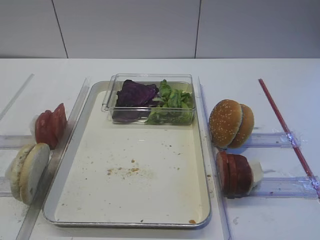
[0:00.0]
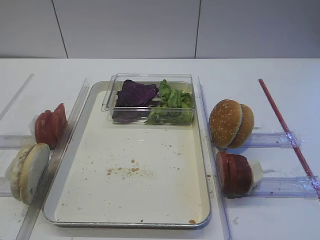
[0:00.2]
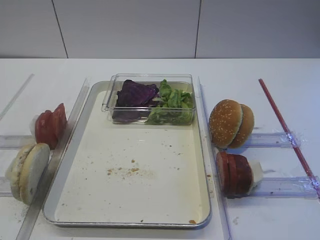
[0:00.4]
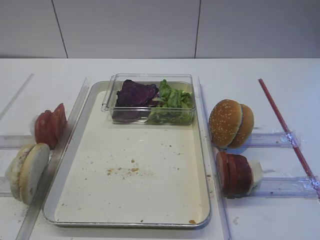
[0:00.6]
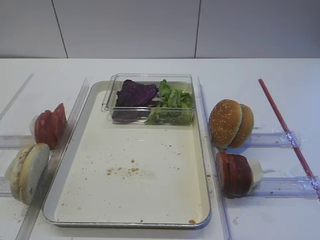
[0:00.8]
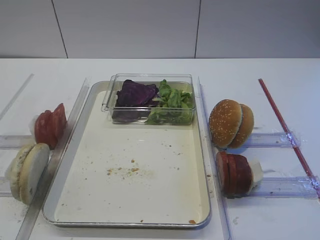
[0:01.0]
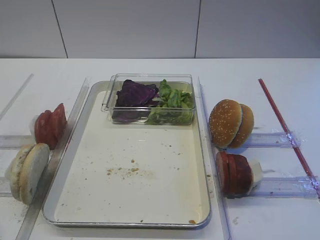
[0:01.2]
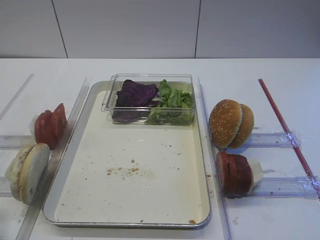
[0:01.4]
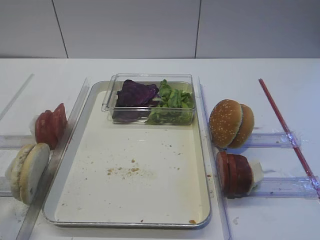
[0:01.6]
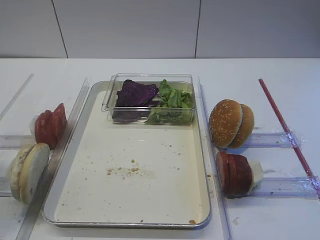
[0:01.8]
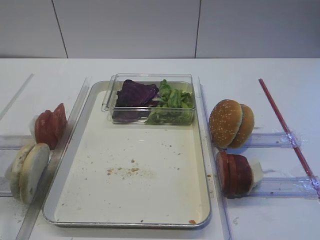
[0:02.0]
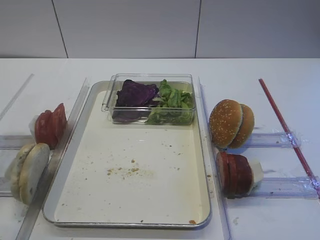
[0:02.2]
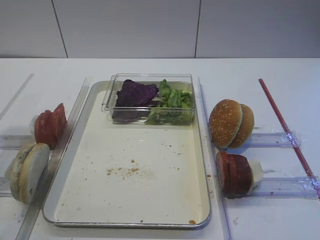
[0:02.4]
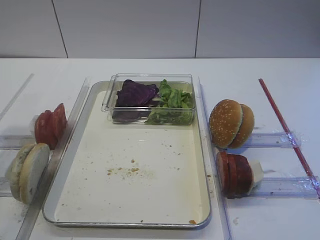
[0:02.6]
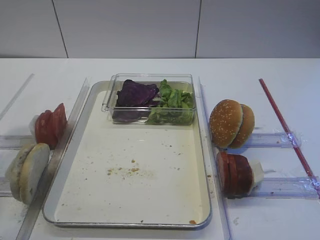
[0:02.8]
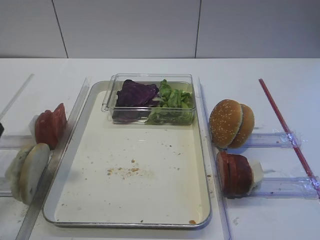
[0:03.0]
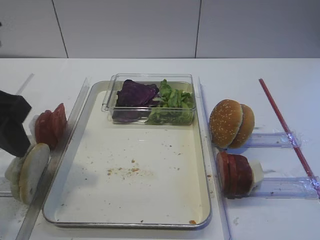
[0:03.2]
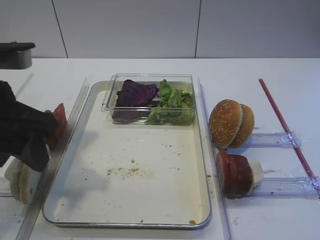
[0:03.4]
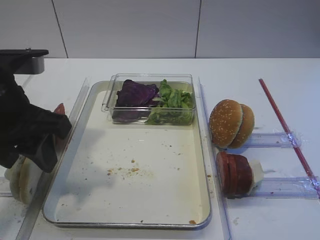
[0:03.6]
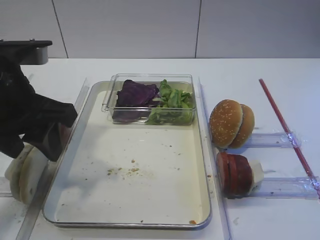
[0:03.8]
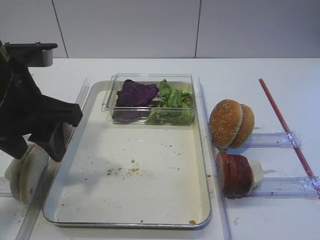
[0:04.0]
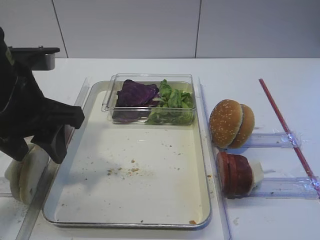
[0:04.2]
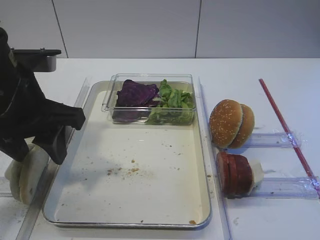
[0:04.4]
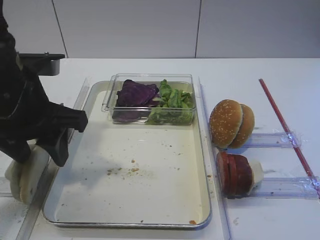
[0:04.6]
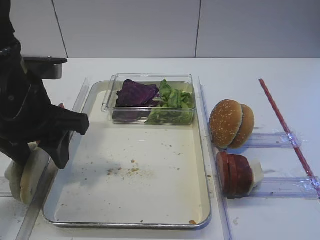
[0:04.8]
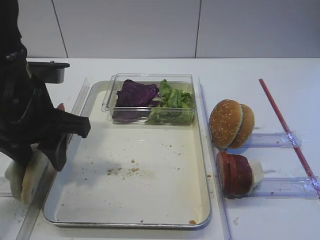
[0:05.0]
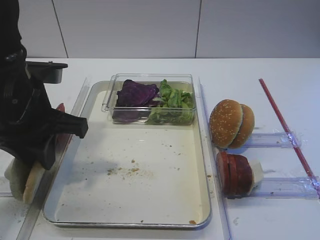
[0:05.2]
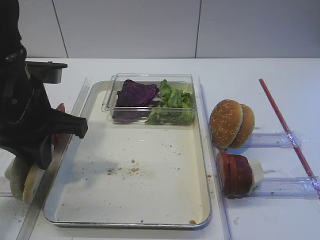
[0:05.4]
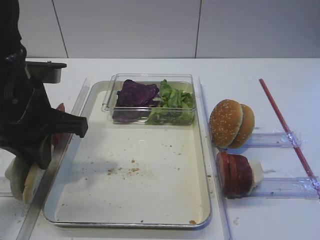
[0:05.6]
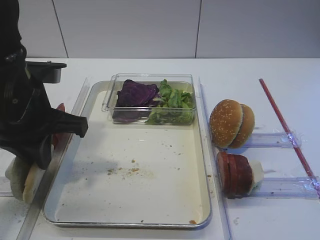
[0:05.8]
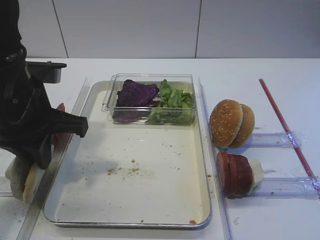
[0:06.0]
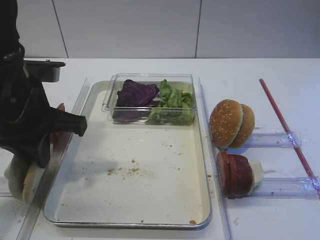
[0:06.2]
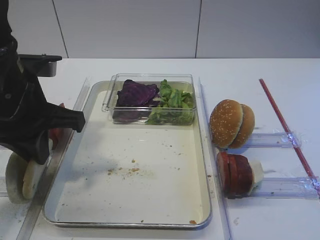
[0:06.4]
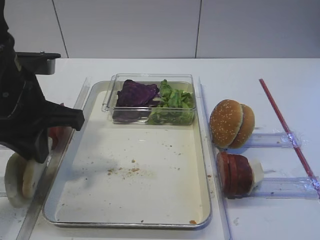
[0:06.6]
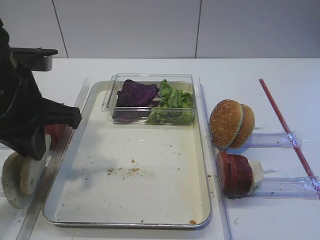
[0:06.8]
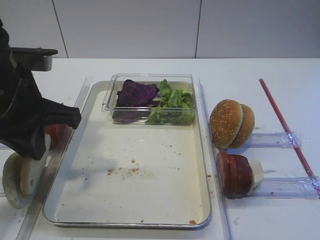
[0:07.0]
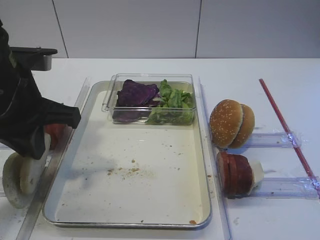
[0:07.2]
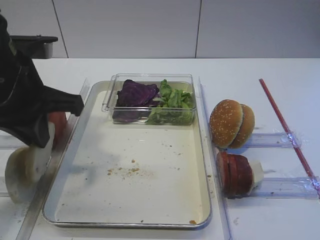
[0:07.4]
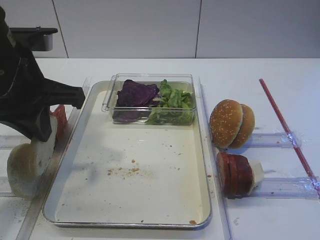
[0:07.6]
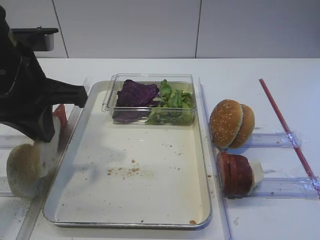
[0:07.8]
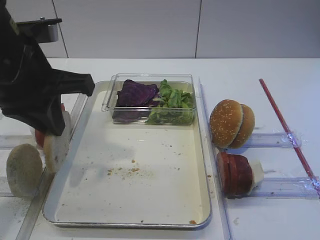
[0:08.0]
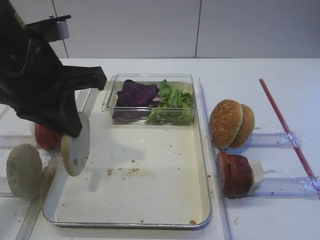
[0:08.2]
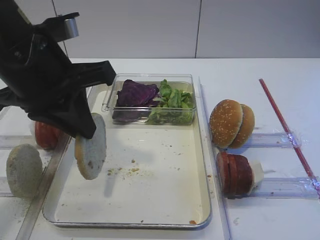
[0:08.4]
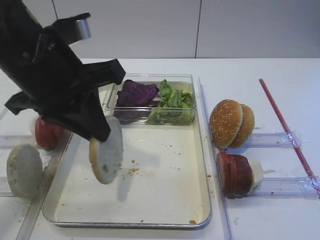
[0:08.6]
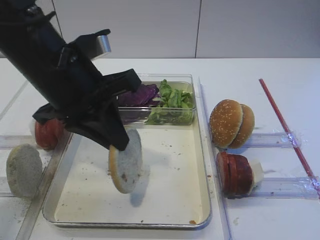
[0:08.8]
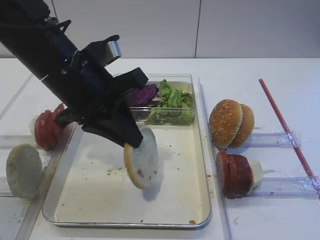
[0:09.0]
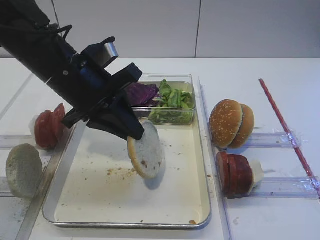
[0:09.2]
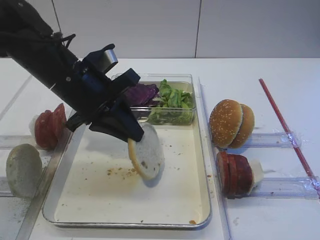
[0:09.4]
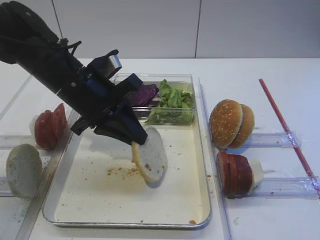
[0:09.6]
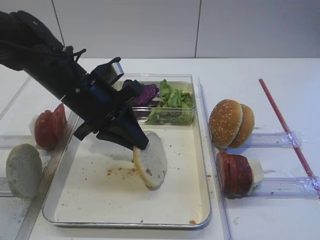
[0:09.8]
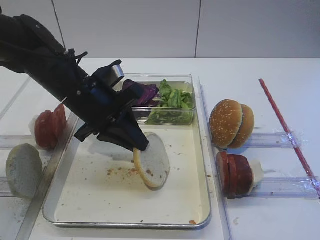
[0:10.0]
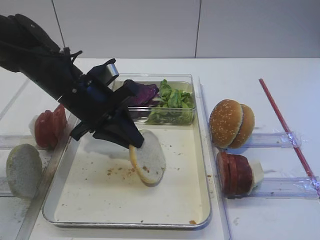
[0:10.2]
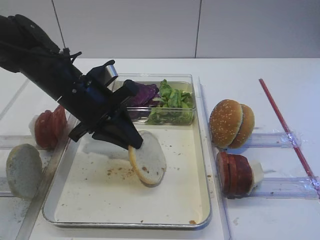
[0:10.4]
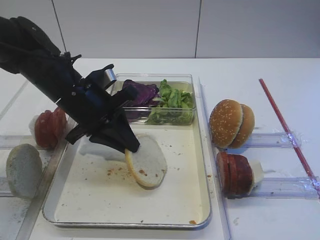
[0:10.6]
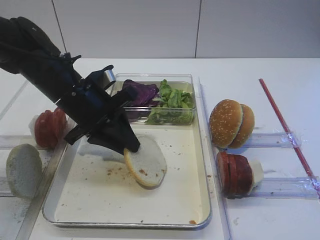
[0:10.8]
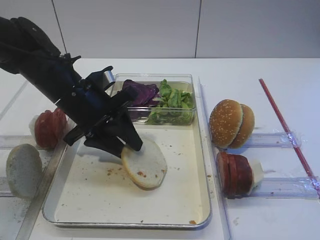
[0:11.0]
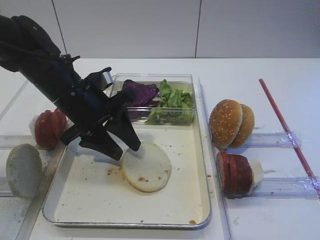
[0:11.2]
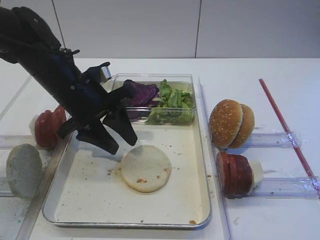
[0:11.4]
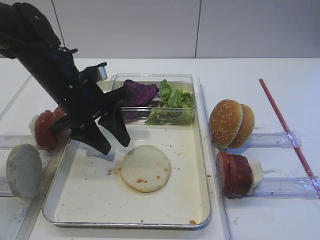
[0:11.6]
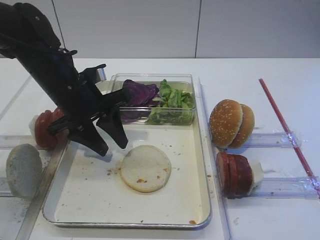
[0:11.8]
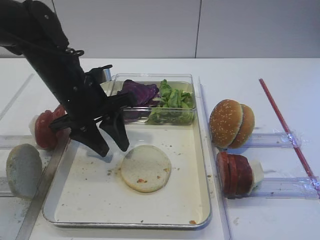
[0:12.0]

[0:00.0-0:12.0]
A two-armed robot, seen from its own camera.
Step, 0:00.0 to 0:07.8: Pick up the bread slice with the left gripper.
Step, 0:08.0 to 0:11.4: Place the bread slice on the tray with the left gripper.
0:01.6 to 0:03.0: The left gripper is displaced forward by about 10 cm.
0:03.0 to 0:04.4: The left gripper moves to the right, about 5 cm.
0:04.4 to 0:06.0: The left gripper closes up.
0:06.0 to 0:07.6: The grippers stay close to where they were, moving slightly.
0:07.6 to 0:09.0: The left gripper moves to the right, some 5 cm.
0:09.0 to 0:10.4: The left gripper heads downward, covering some 5 cm.
0:10.4 to 0:12.0: The left gripper opens.

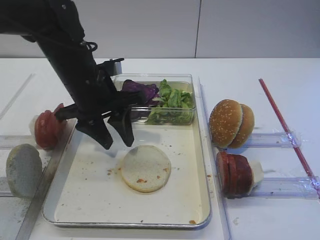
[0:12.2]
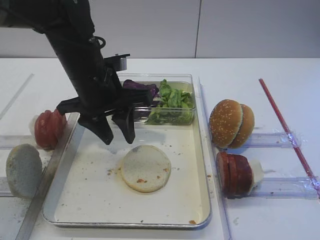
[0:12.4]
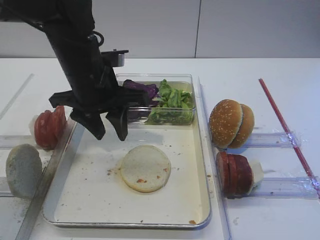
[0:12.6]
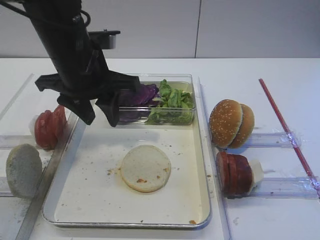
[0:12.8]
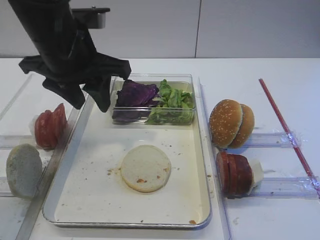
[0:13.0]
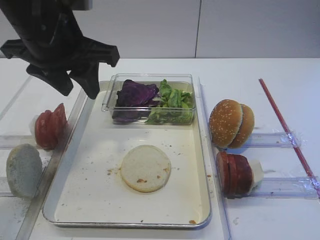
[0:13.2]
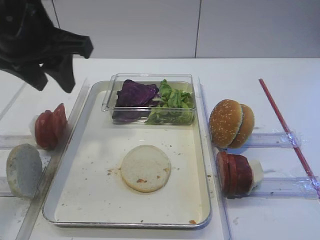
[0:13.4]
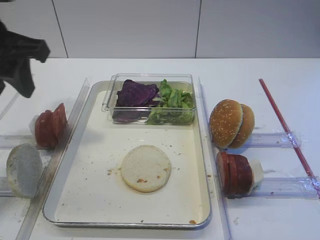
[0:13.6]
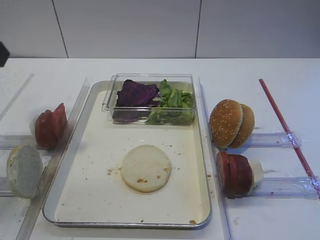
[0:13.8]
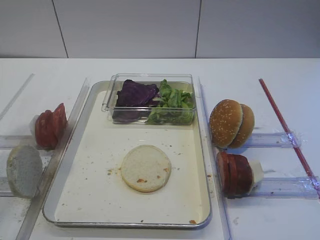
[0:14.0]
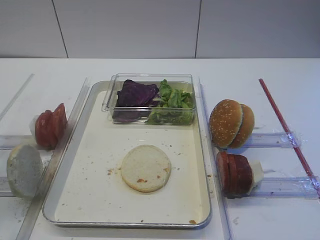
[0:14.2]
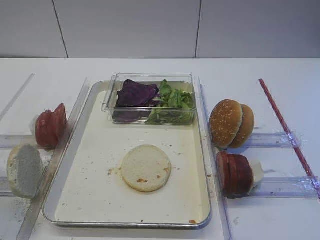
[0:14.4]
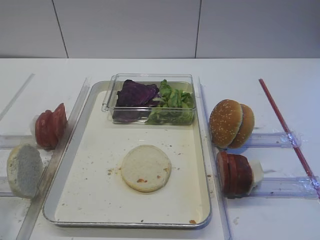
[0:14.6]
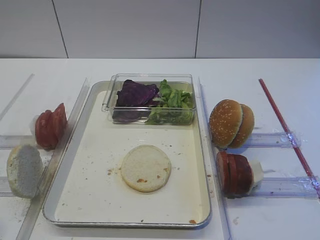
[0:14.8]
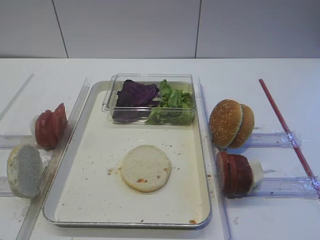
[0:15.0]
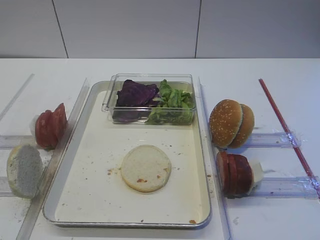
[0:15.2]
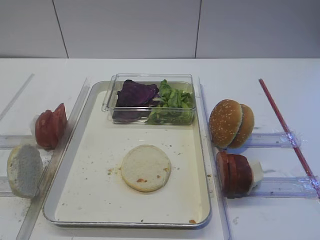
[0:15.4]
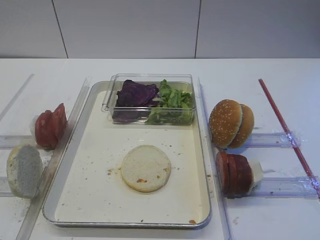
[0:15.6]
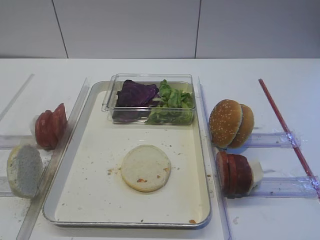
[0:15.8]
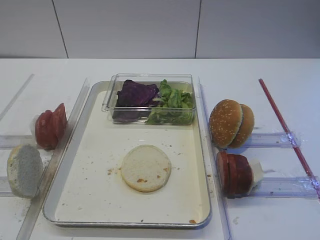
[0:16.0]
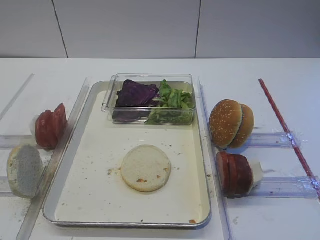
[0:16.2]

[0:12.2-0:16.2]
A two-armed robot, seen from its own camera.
0:12.2 to 0:13.6: The left gripper heads upward, to the left and backward, covering roughly 20 cm.
0:13.6 to 0:14.8: The left gripper shifts roughly 25 cm backward.

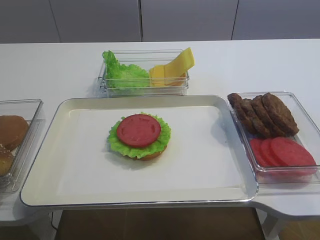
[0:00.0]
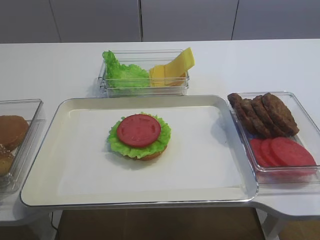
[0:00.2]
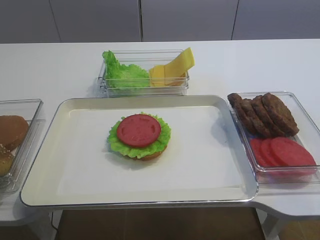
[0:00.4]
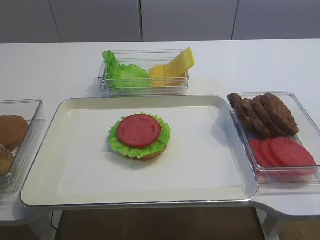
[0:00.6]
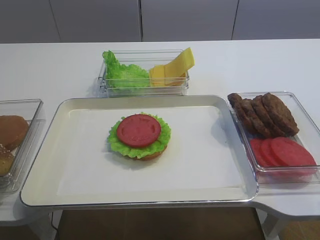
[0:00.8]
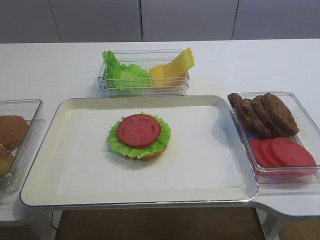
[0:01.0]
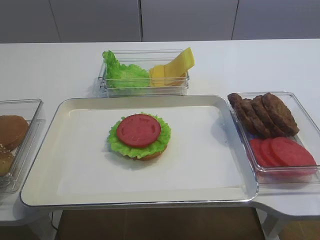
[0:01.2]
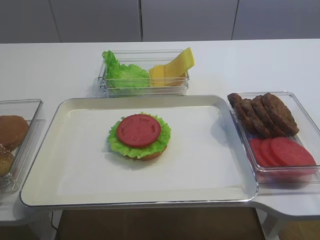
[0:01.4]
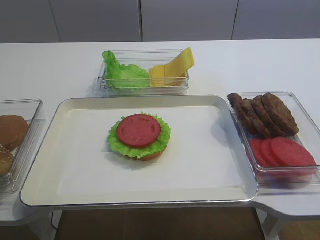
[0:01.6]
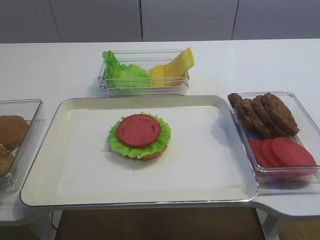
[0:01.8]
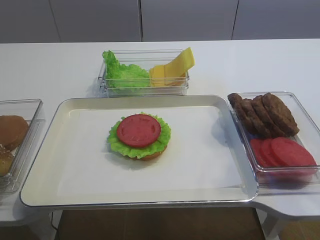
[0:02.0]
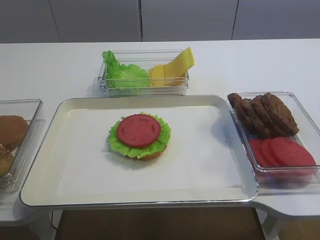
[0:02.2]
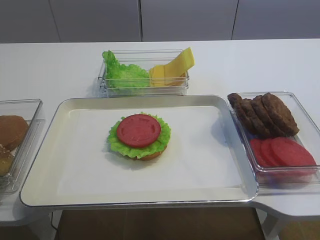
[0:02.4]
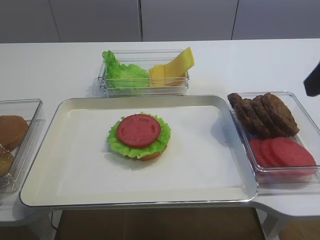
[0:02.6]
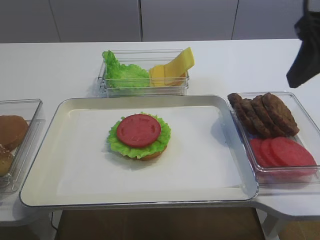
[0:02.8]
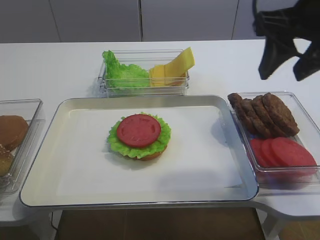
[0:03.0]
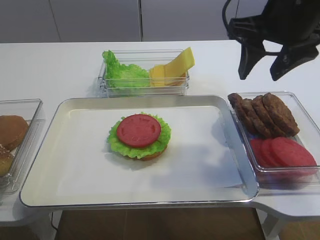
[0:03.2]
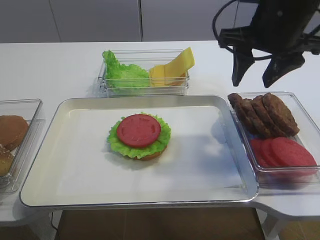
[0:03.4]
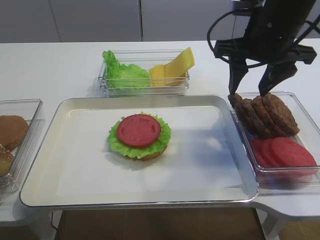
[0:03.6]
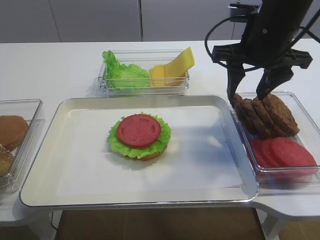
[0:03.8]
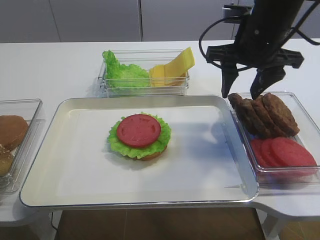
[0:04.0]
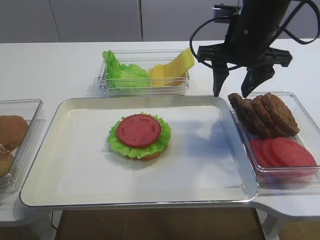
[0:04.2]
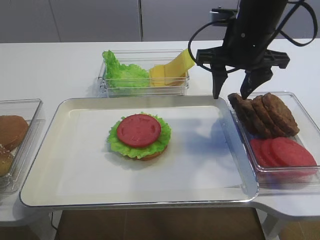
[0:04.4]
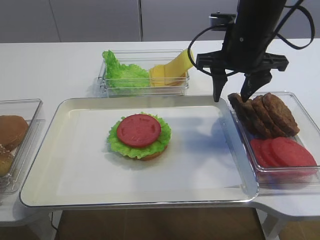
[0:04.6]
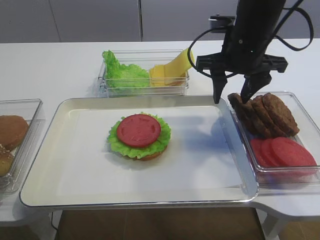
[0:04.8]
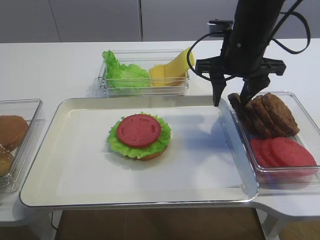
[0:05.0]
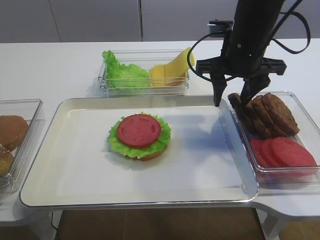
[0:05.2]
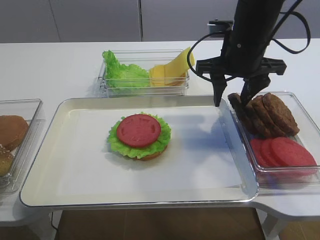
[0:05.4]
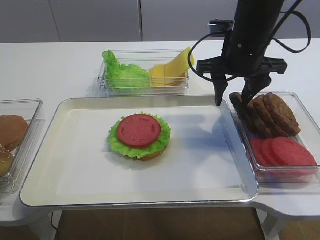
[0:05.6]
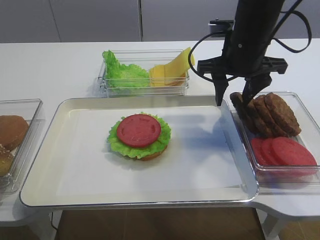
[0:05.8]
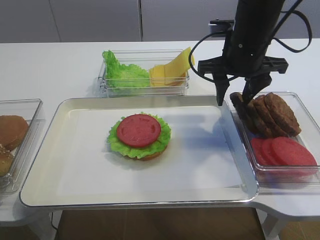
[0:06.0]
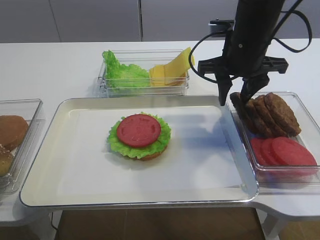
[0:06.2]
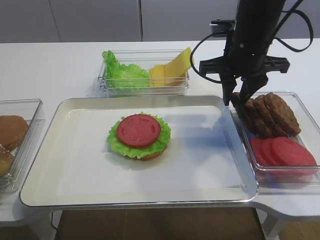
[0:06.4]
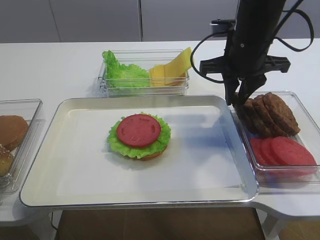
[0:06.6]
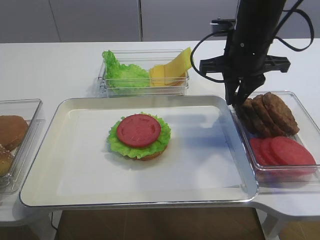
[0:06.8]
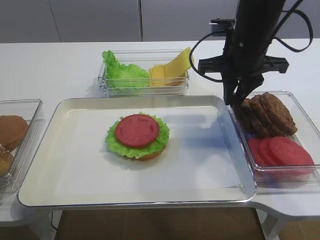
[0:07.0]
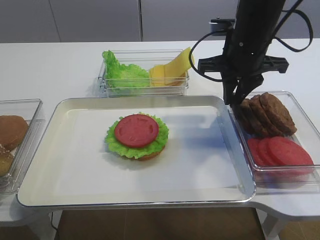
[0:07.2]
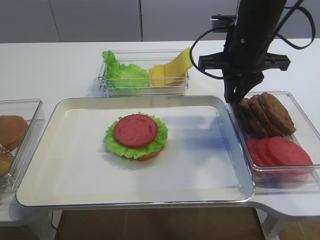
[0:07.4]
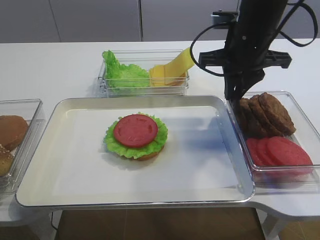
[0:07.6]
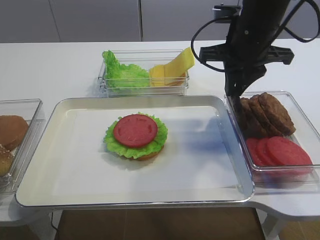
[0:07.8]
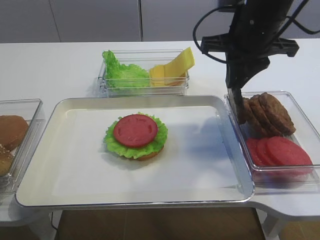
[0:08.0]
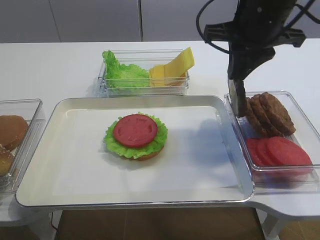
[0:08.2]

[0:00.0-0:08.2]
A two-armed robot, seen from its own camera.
0:01.6 to 0:03.2: The right gripper travels forward by some 25 cm.
0:03.2 to 0:05.0: The right gripper shifts some 10 cm downward and forward.
0:05.0 to 0:06.6: The right gripper closes its fingers.
0:06.6 to 0:08.2: The right gripper moves upward, some 5 cm.
